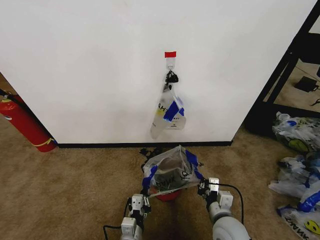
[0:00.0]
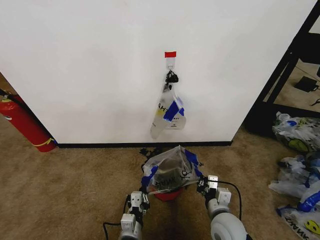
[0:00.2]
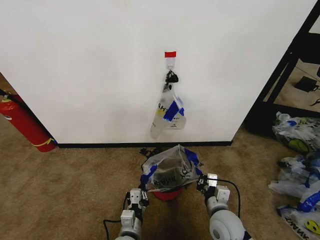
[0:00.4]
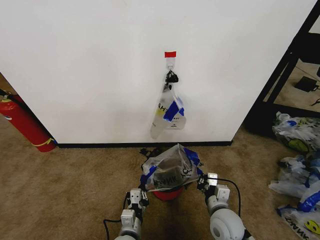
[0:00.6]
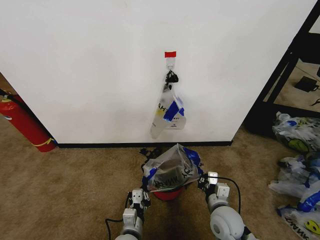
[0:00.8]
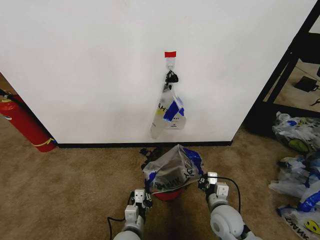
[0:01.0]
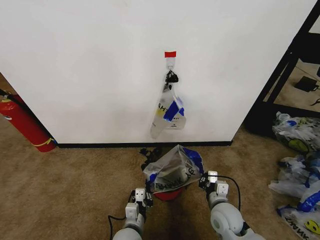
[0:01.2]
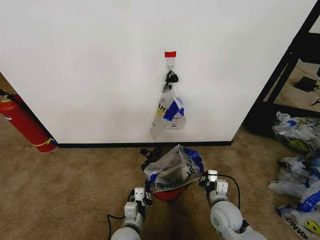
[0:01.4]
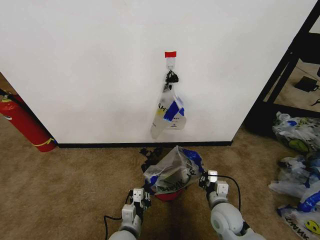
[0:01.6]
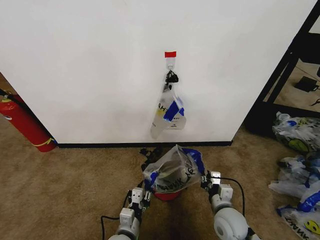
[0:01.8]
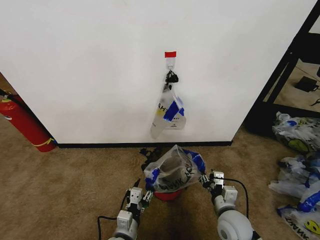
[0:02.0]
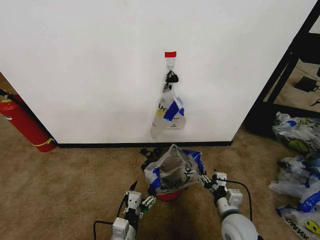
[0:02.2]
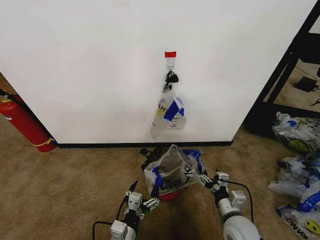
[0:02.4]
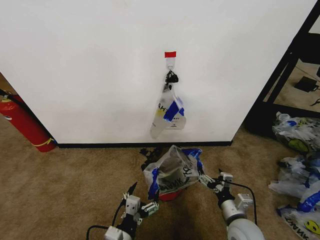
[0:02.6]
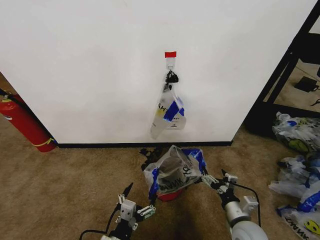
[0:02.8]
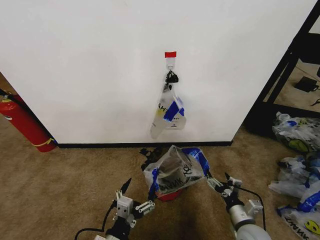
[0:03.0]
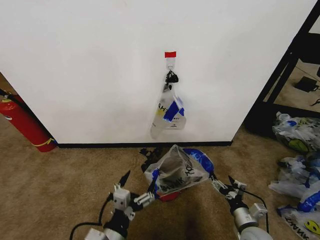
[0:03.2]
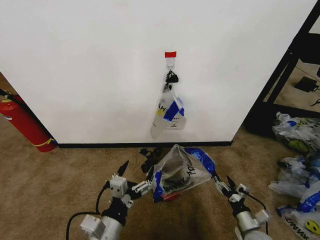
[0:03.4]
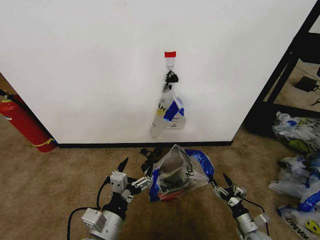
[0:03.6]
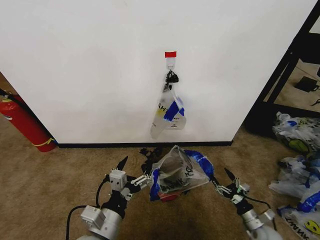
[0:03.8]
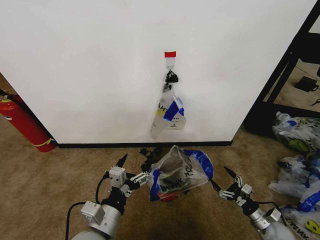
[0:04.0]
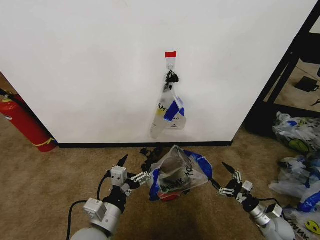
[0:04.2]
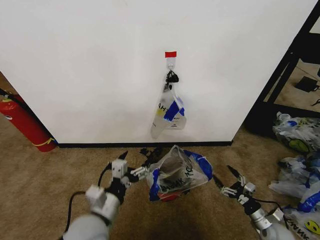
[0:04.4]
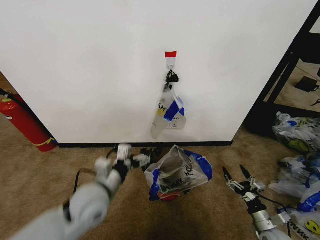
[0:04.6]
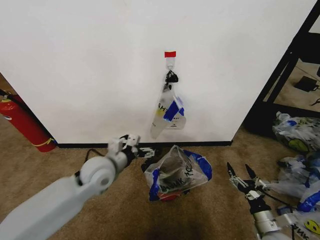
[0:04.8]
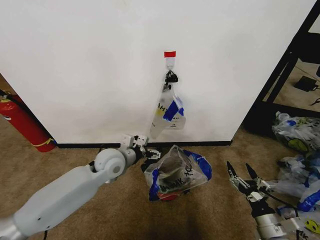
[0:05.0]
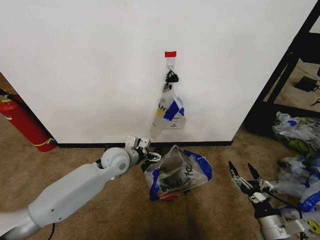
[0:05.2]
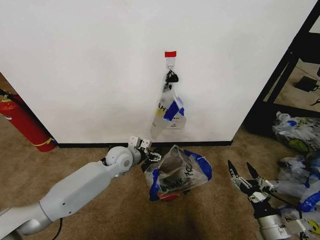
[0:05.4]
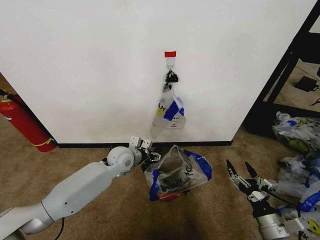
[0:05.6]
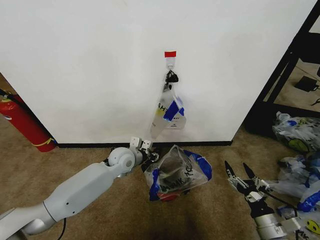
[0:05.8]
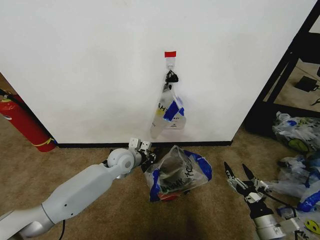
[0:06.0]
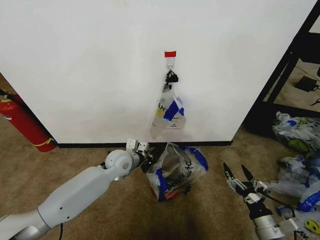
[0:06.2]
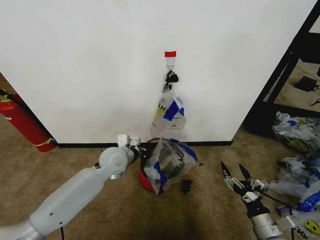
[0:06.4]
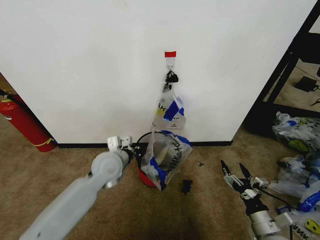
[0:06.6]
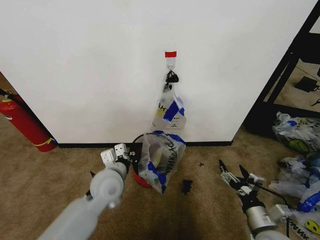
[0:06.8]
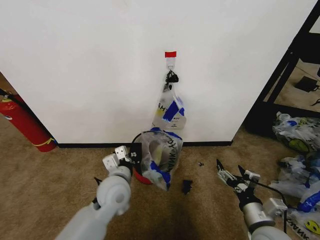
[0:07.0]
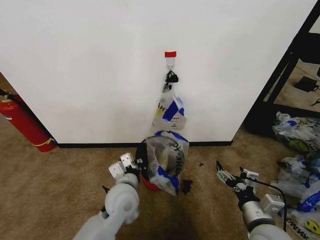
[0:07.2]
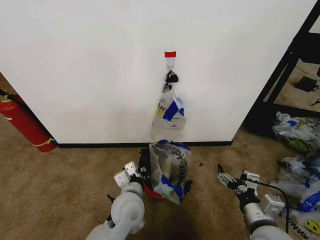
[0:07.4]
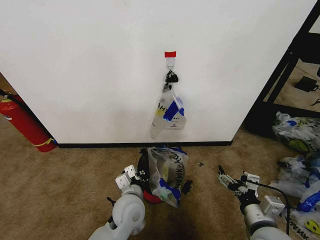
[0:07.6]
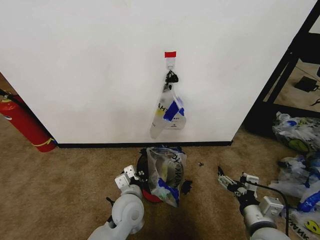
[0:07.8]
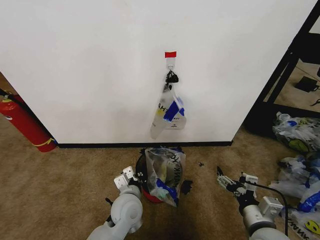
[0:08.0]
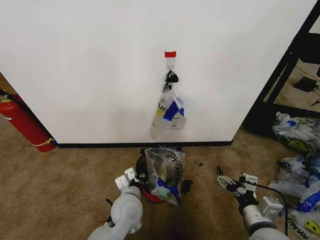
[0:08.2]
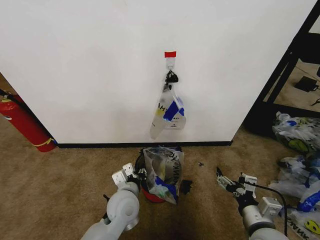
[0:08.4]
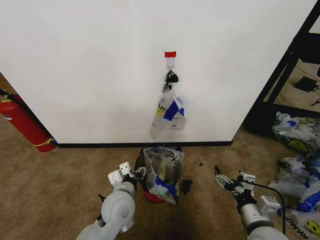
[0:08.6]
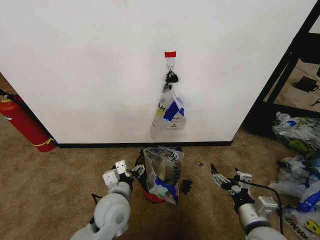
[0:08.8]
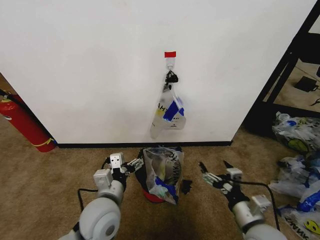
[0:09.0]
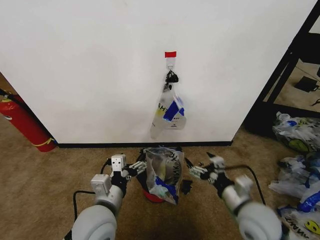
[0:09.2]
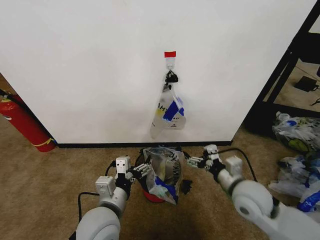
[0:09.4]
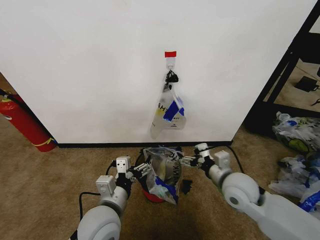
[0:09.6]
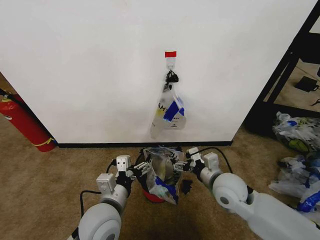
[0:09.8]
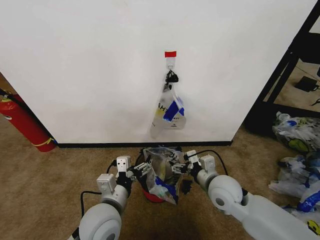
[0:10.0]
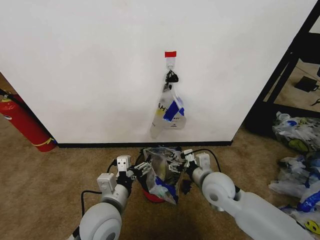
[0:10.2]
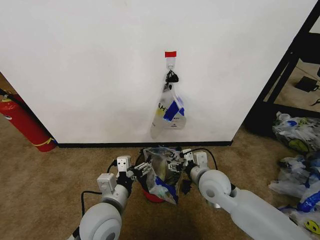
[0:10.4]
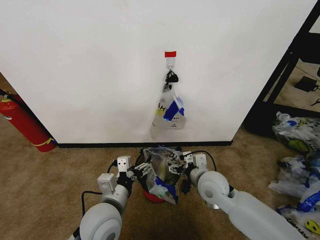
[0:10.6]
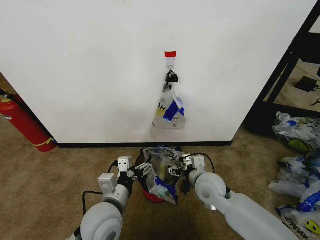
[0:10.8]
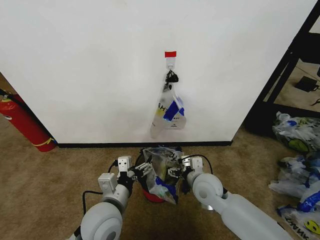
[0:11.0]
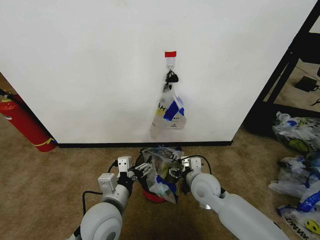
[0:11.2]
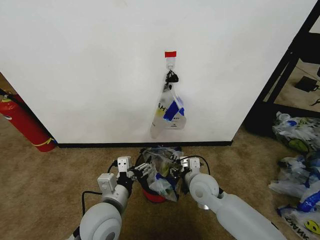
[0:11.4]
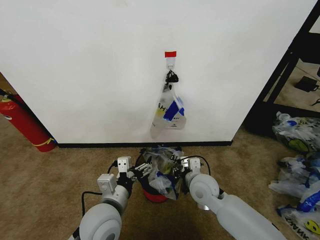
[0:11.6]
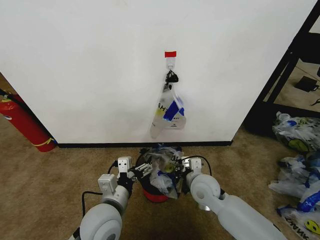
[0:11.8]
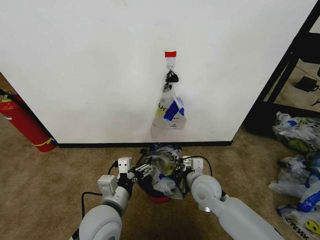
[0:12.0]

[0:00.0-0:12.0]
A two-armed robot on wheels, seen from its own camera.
Task of the whole recording: Pick up the garbage bag from the wall and place it over the trash bin.
0.0 to 1.6 s: The right gripper moves about 5 cm.
1.6 to 3.0 s: The left gripper heads backward and upward, covering approximately 10 cm, and opens. Meanwhile the right gripper moves to the right and backward, approximately 10 cm, and opens up.
3.0 to 4.4 s: The left gripper moves forward and upward, some 10 cm. Meanwhile the right gripper is displaced to the right and downward by some 15 cm.
4.4 to 6.0 s: The left gripper is displaced forward by roughly 25 cm, and closes its fingers. Meanwhile the right gripper is displaced upward, to the left and backward by about 15 cm.
6.0 to 7.6 s: The right gripper moves upward and to the left, some 10 cm; the left gripper moves backward, some 15 cm.
7.6 to 9.0 s: The left gripper goes some 10 cm upward and to the left, and opens its fingers.
9.0 to 10.4 s: The right gripper goes approximately 15 cm forward and to the left.
10.4 to 12.0 s: The right gripper closes its fingers.

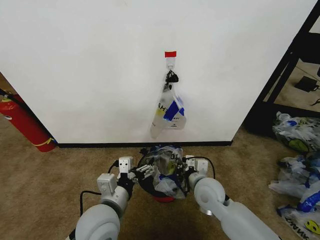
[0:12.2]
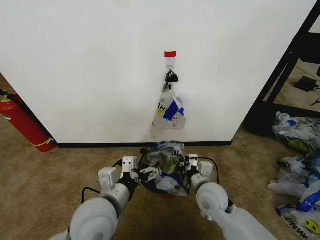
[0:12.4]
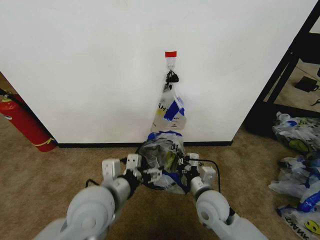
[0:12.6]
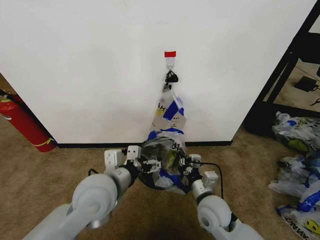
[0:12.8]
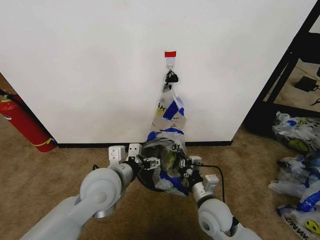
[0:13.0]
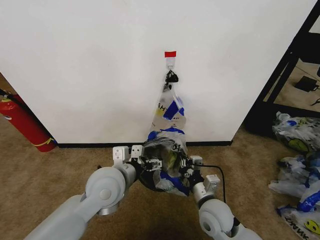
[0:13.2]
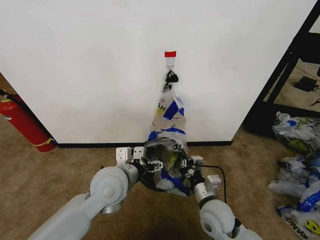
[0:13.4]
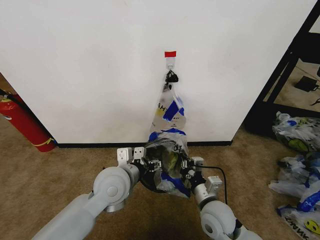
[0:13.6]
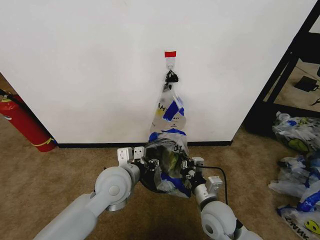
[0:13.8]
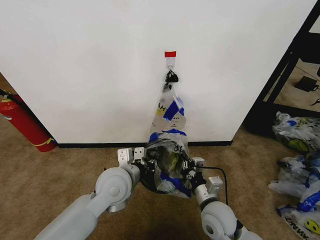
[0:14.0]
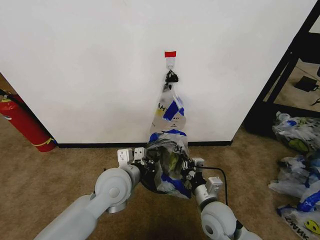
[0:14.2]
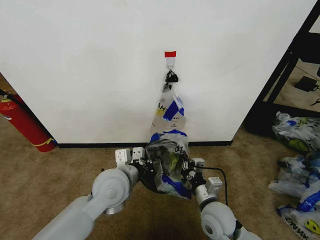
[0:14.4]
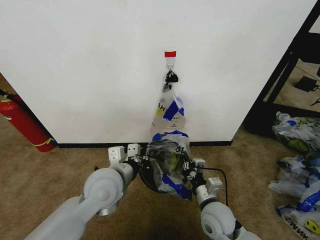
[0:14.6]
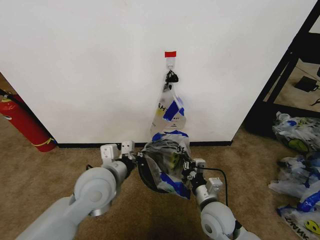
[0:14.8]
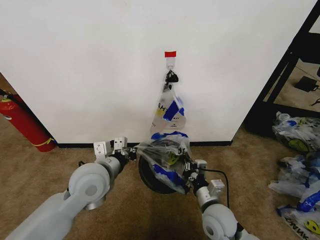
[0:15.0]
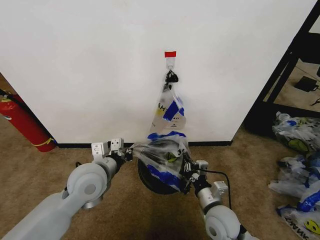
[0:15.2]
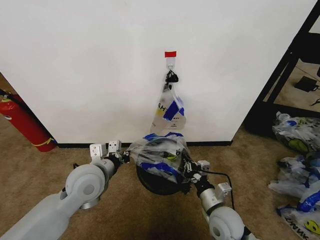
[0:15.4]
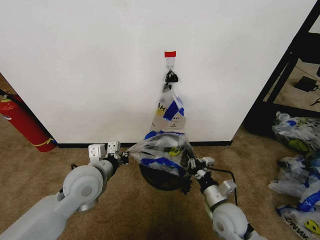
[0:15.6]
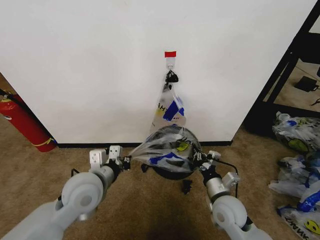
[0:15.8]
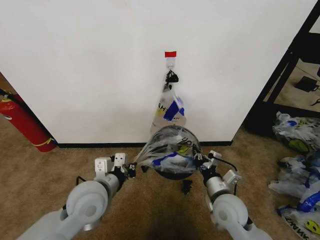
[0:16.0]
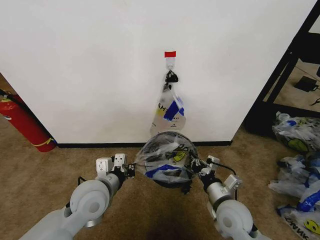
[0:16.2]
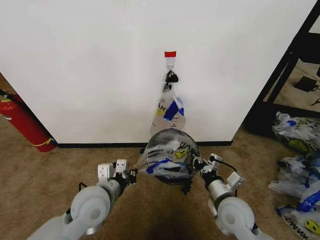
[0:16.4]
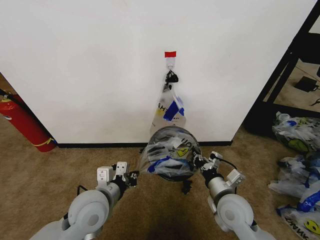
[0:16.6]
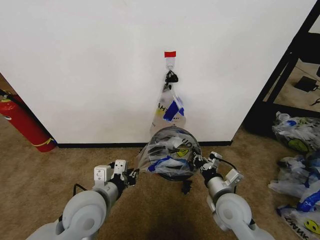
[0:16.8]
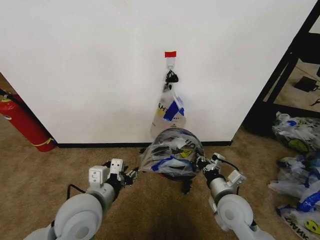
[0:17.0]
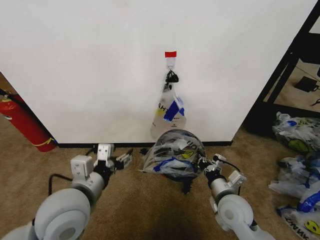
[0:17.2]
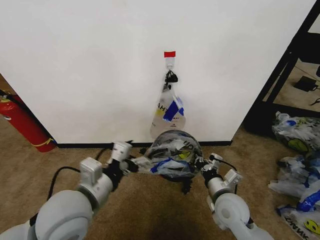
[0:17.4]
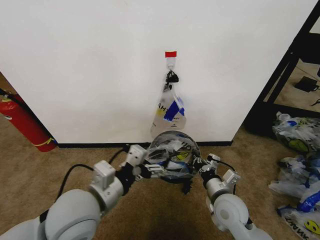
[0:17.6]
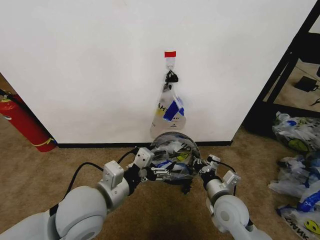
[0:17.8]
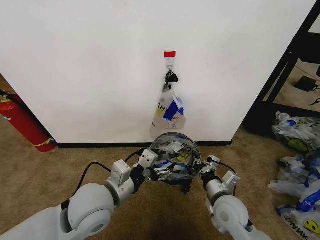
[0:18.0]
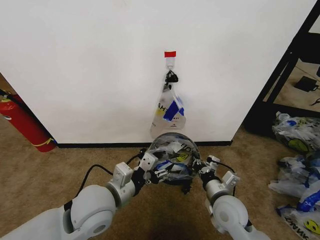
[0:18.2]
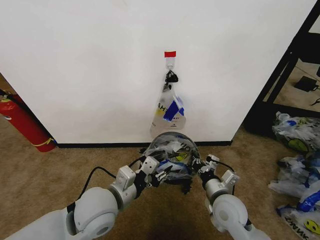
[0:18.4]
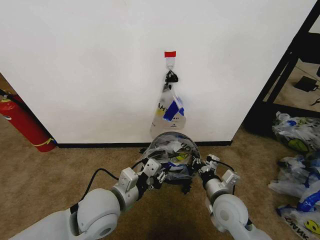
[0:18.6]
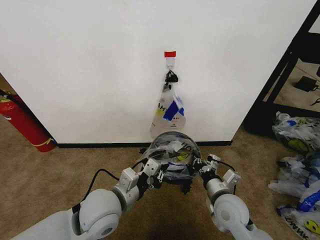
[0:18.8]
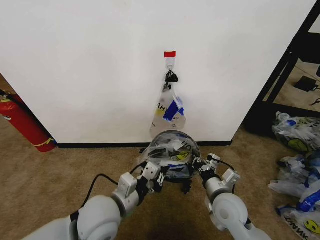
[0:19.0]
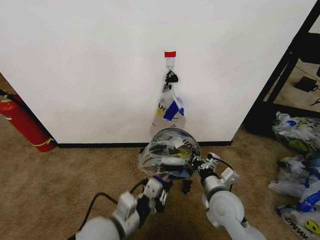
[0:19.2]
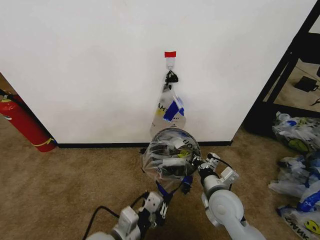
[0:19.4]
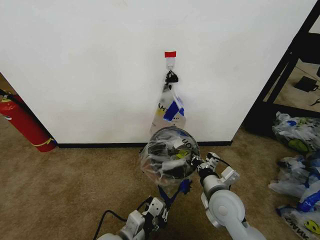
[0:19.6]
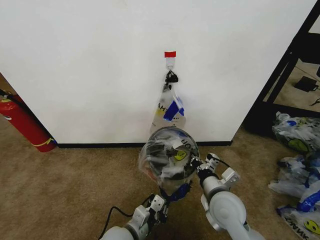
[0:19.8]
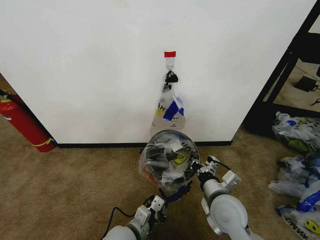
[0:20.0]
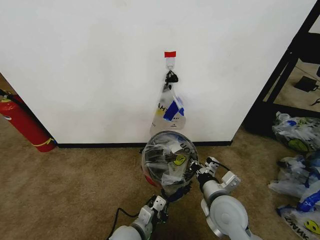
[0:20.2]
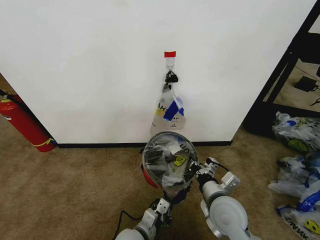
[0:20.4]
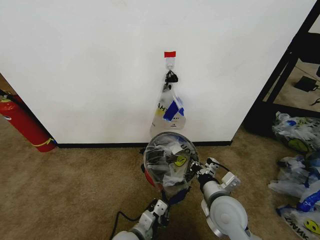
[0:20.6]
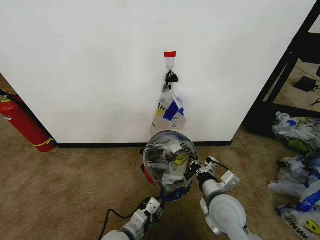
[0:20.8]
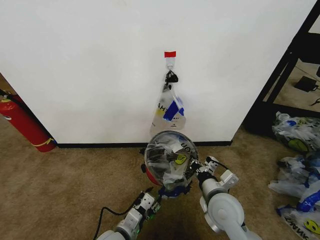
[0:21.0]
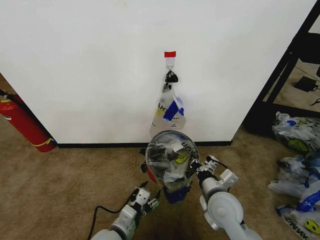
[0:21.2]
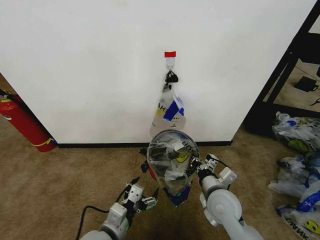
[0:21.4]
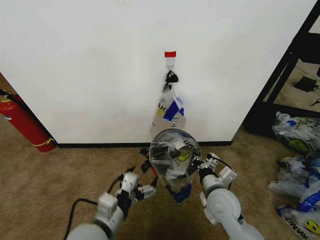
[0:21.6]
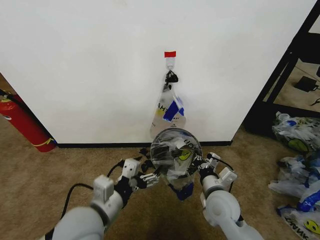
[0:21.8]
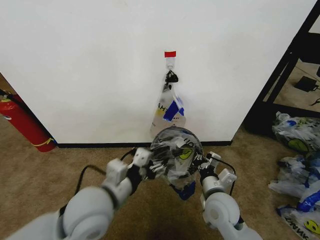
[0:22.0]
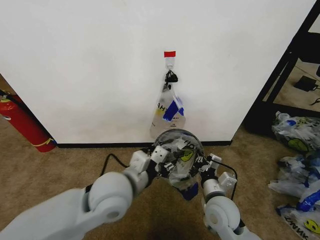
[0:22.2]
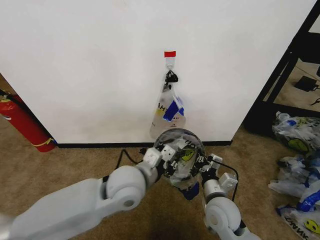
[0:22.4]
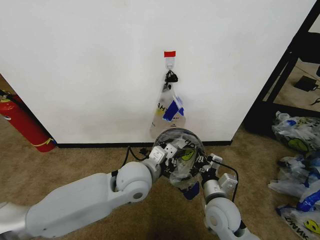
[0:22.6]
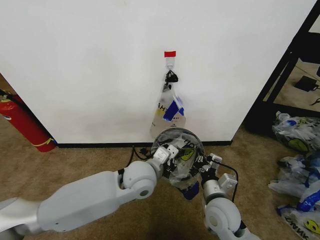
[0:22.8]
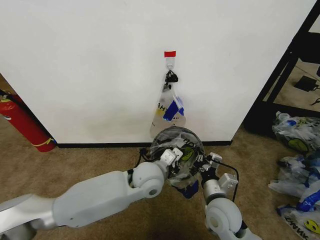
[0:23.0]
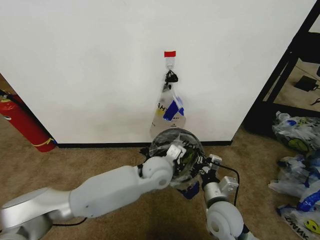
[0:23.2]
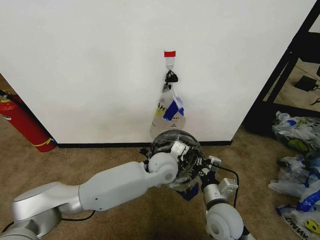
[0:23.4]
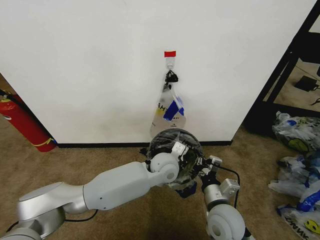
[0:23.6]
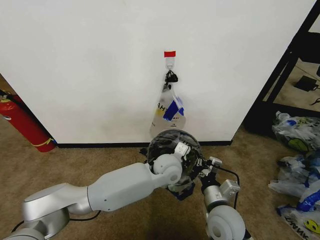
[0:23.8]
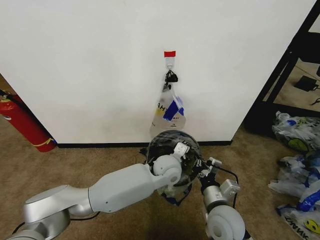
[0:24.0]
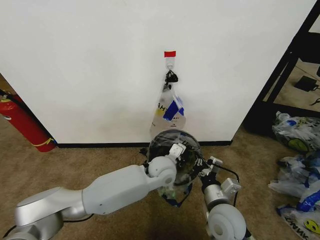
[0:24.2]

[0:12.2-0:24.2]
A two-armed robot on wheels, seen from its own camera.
Task of the whole recording: Pick up the garbage bag from the wall and place it over the trash bin.
12.2 to 13.8 s: The left gripper travels forward by some 10 cm, and closes up; the right gripper shifts approximately 10 cm backward.
13.8 to 15.2 s: The left gripper shifts about 5 cm to the left, and closes.
15.2 to 16.6 s: The left gripper travels backward by approximately 5 cm. The right gripper moves some 5 cm.
16.6 to 18.2 s: The left gripper opens.
18.2 to 19.8 s: The left gripper goes approximately 15 cm downward, and closes its fingers.
19.8 to 21.2 s: The left gripper opens up.
21.2 to 22.6 s: The left gripper shifts some 20 cm forward, upward and to the right, and closes its fingers.
22.6 to 24.2 s: The left gripper travels downward, to the right and forward by roughly 15 cm.
